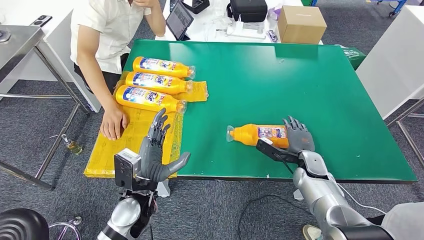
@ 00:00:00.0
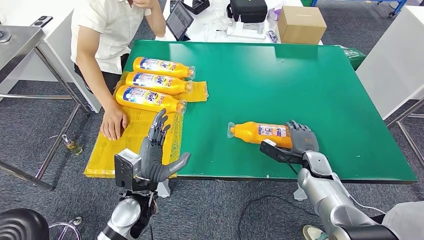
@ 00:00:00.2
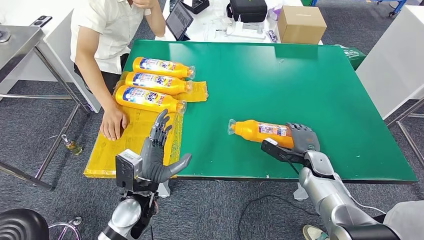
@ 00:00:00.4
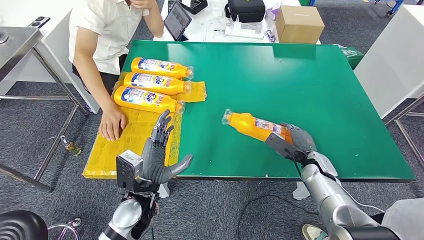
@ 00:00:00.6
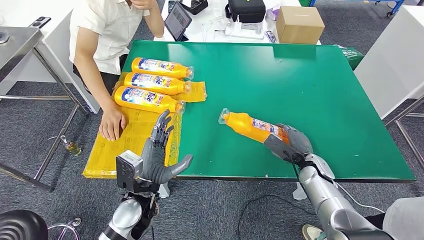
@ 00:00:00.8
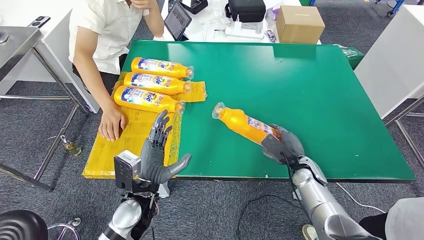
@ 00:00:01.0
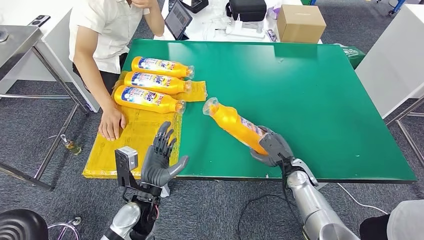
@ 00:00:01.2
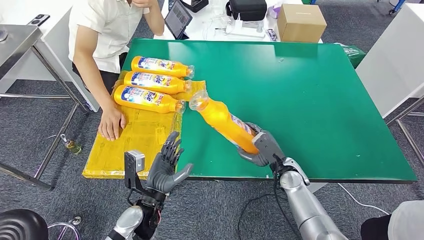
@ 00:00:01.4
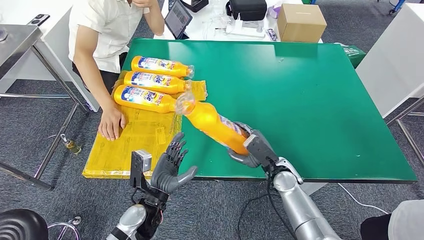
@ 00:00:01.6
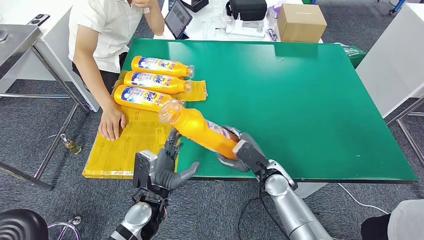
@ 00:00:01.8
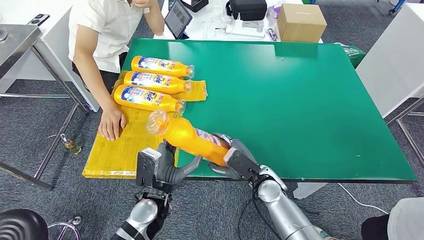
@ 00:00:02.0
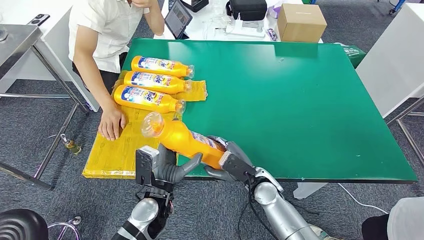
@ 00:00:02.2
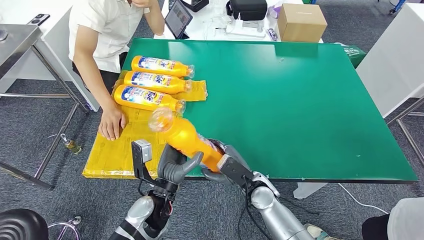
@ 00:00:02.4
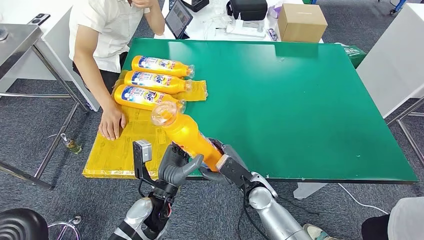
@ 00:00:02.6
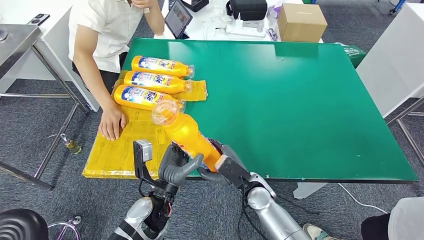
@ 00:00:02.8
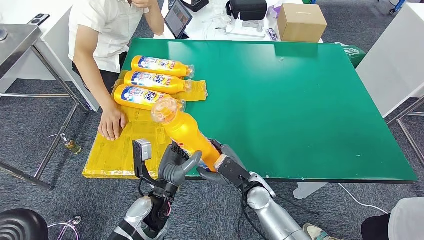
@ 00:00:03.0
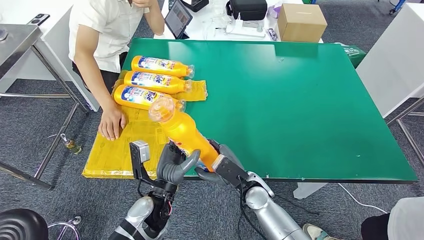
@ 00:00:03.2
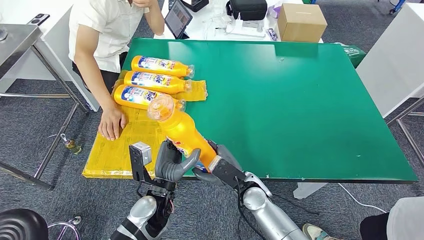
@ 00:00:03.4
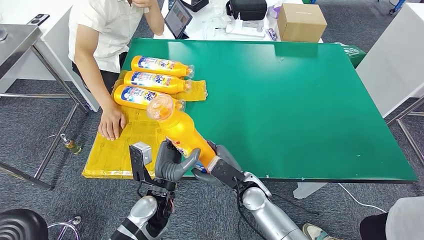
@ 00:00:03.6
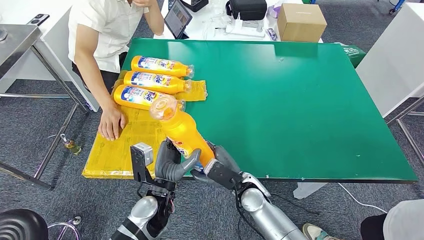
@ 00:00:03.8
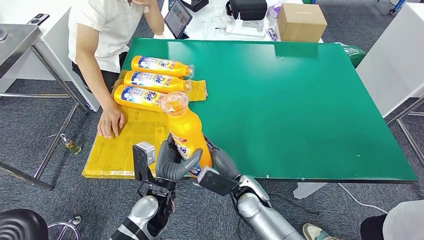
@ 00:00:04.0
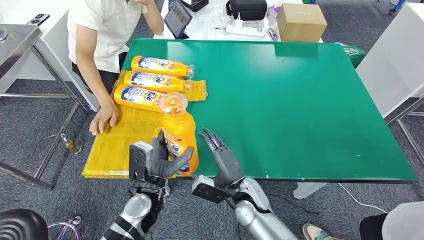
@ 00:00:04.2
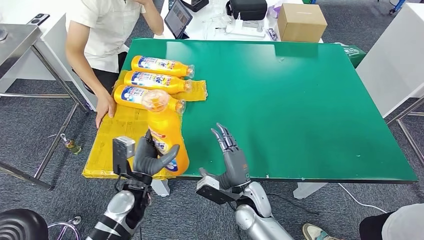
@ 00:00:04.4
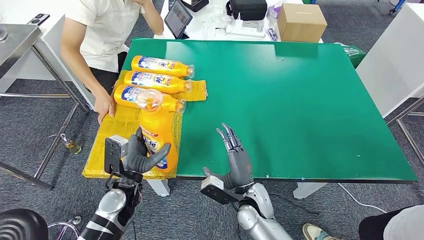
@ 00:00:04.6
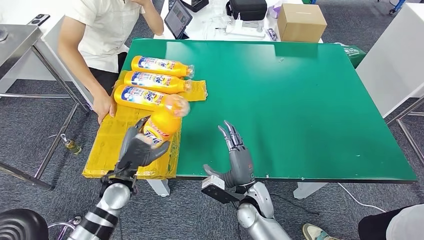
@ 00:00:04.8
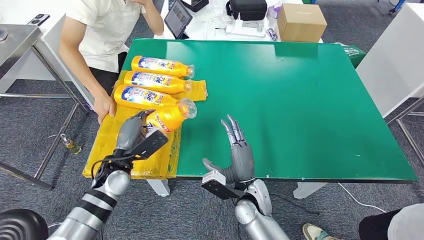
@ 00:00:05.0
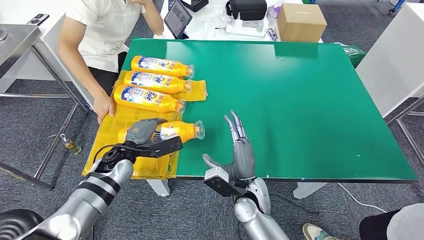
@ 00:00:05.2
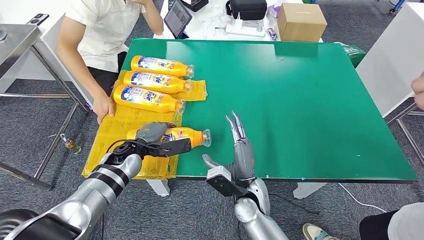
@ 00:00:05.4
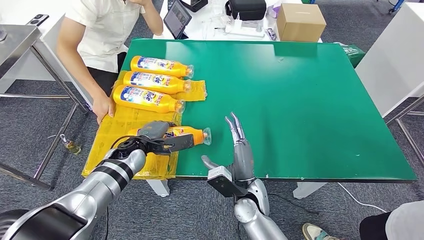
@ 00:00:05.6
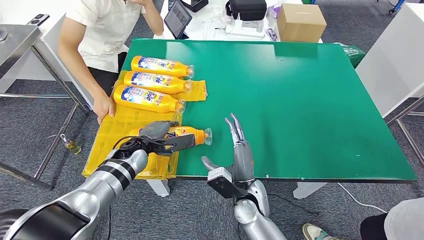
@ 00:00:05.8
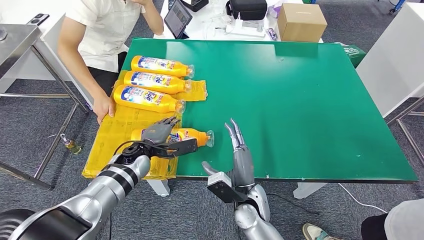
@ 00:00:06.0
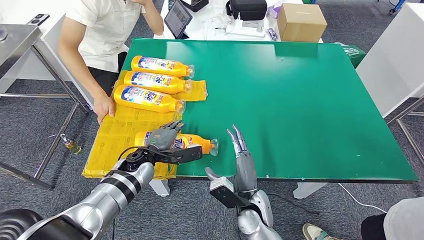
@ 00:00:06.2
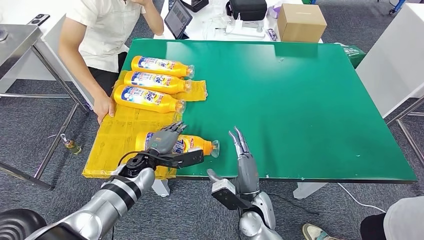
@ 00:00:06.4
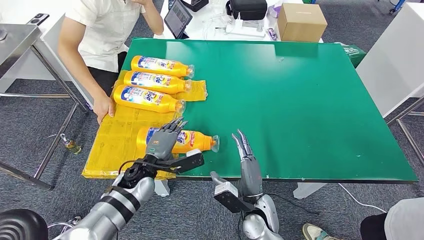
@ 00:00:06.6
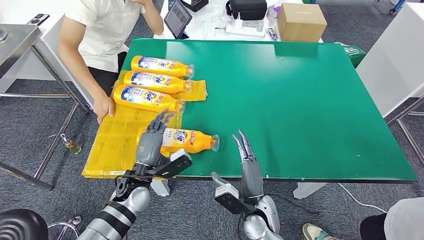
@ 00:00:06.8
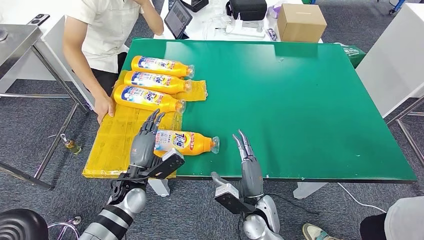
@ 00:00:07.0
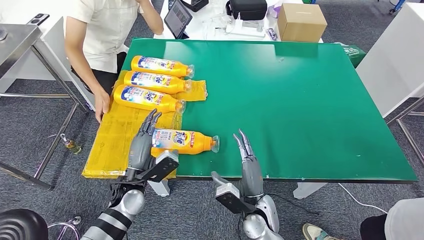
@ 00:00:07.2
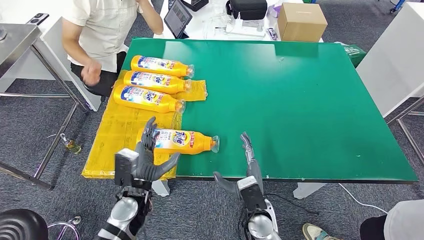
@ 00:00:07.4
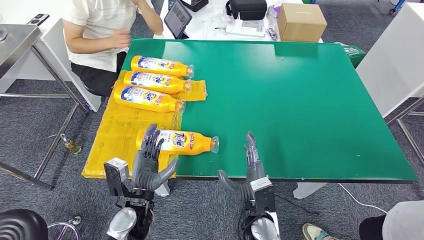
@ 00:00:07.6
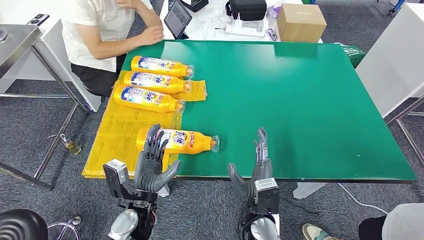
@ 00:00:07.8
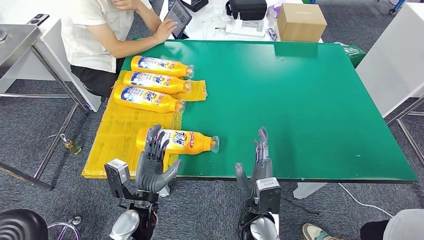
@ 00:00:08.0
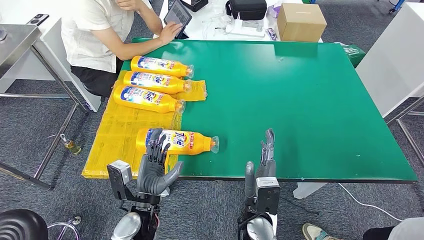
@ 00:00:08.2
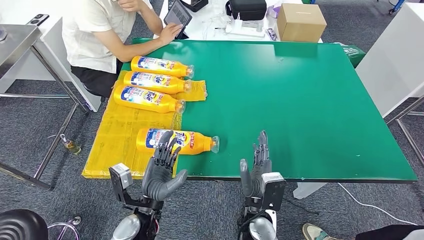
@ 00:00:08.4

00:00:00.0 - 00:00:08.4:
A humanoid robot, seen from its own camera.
Step, 00:00:00.0 - 00:00:01.8: Pick up the fast-moving consumer goods bottle from the table.
Step, 00:00:02.2 - 00:00:08.4: Flip the fast-moving consumer goods bottle to the front side.
00:00:00.0 - 00:00:01.4: The right hand is displaced to the left by approximately 10 cm.
00:00:01.4 - 00:00:02.8: The right hand moves to the left, roughly 10 cm.
00:00:04.2 - 00:00:05.6: The left hand moves forward and to the left, about 15 cm.
00:00:05.6 - 00:00:07.0: The right hand ends up about 5 cm from where it was. Meanwhile the left hand moves backward, about 10 cm.
00:00:07.0 - 00:00:08.4: The left hand moves backward, approximately 10 cm.
